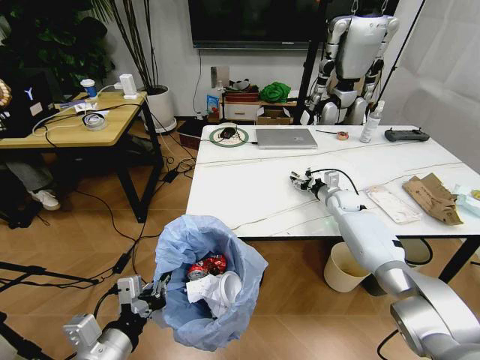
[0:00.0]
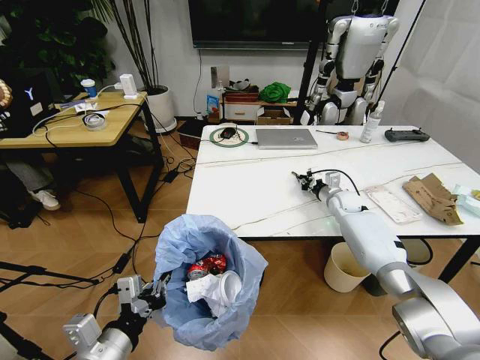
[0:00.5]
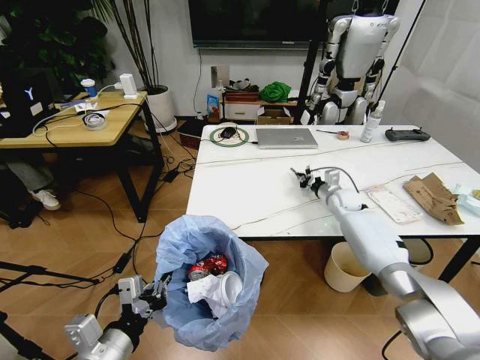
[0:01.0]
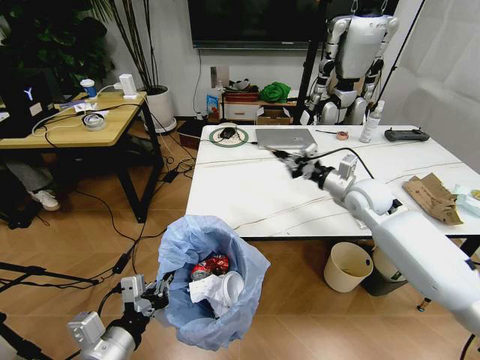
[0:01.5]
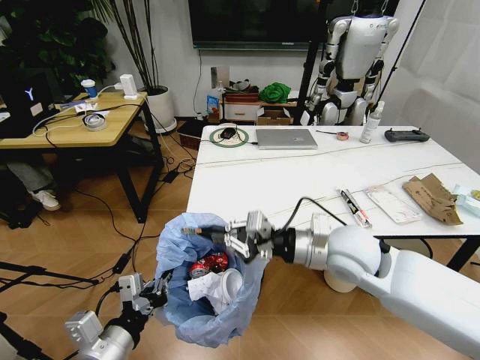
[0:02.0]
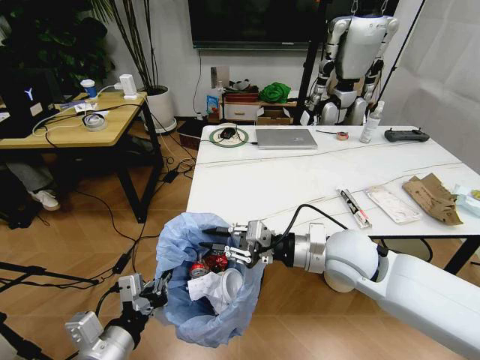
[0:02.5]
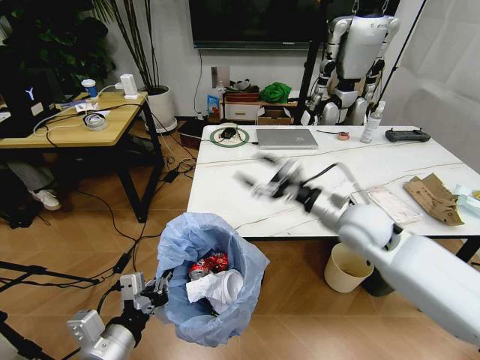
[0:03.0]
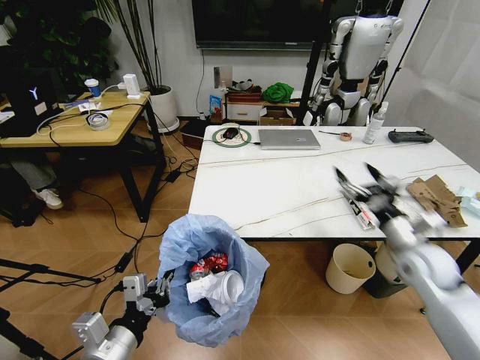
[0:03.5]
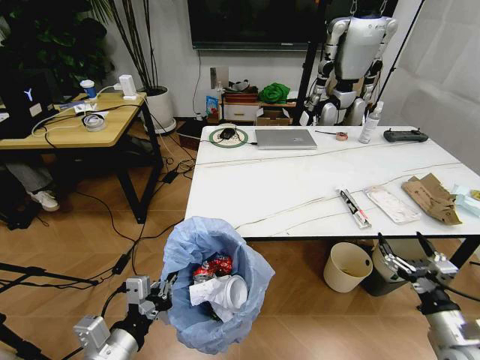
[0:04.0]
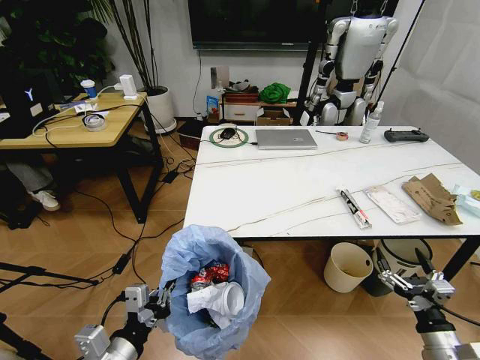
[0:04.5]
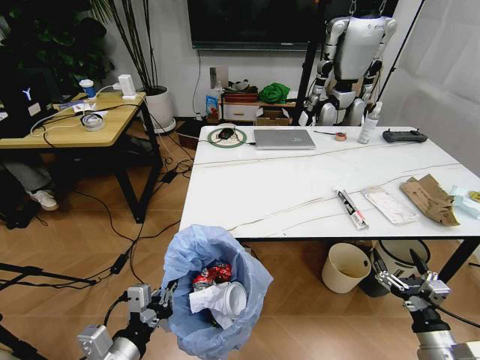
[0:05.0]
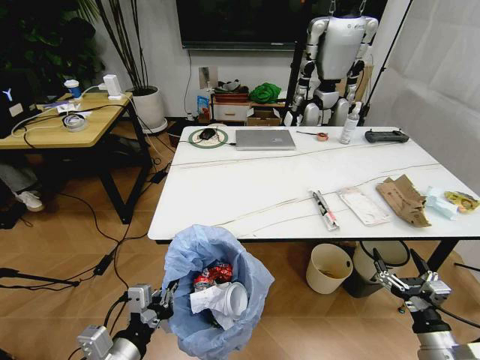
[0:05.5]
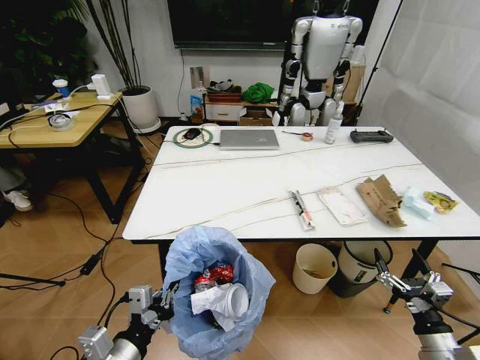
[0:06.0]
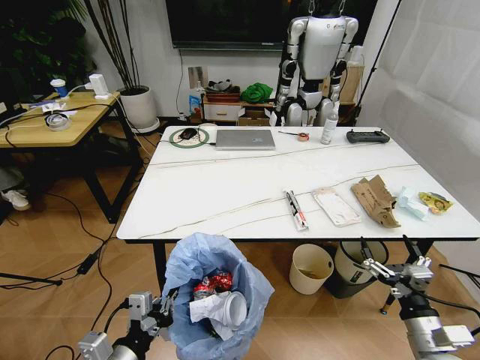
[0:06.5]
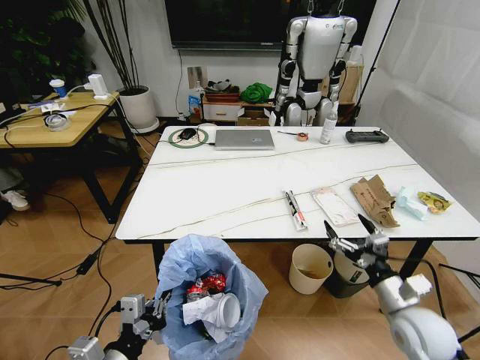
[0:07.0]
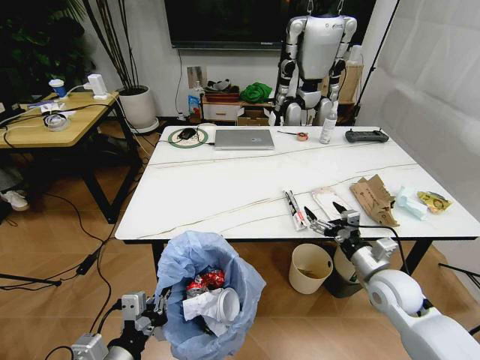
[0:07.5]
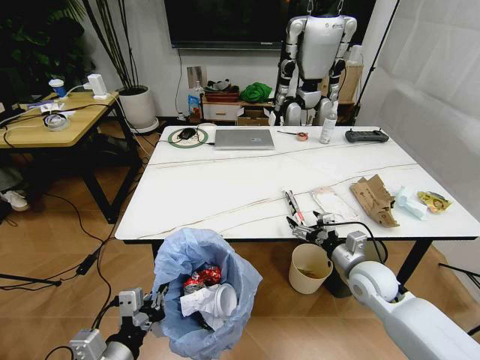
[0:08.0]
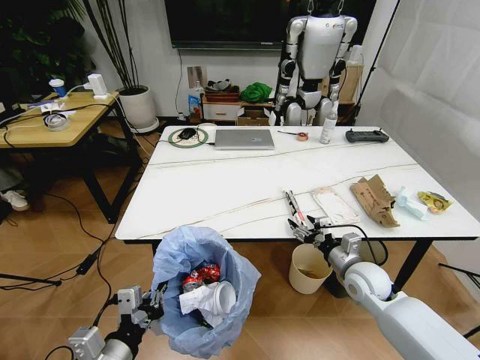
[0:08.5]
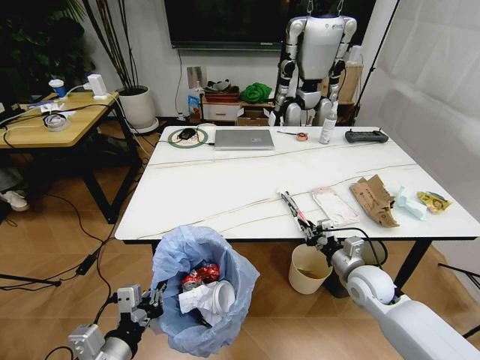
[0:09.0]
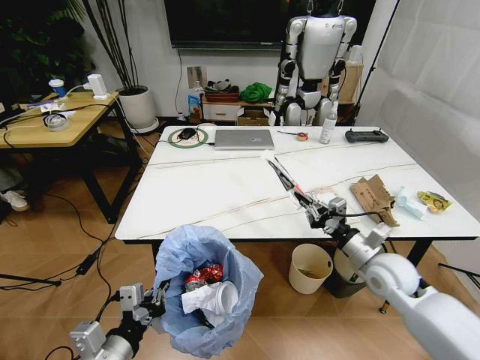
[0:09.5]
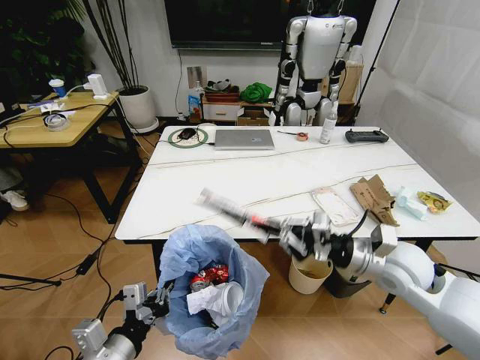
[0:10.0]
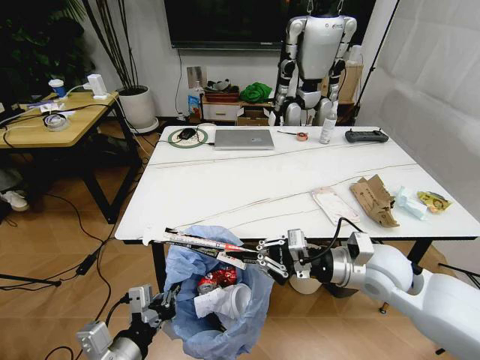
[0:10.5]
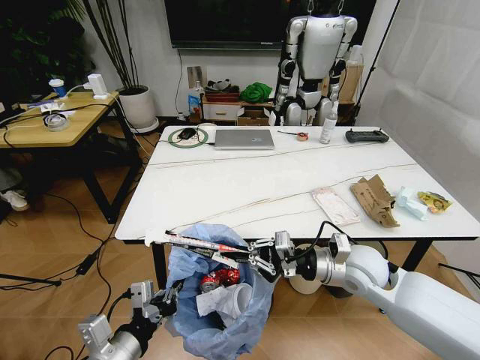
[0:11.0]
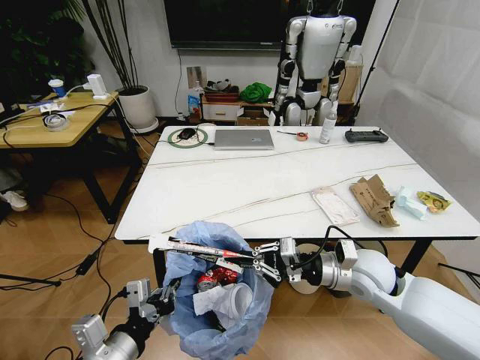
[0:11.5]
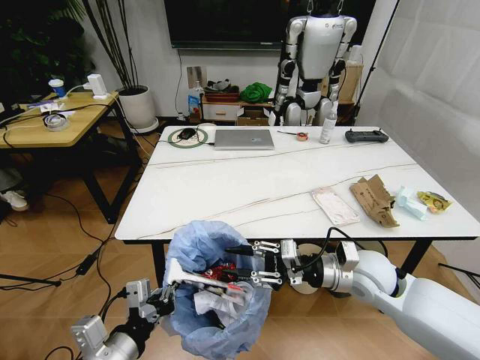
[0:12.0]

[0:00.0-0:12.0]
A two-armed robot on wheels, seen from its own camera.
Task of the whole recording: Pick up the trash bin and place the trash from the table into it.
0:00.0 to 0:02.0: The right gripper heads backward, upward and to the left, covering roughly 35 cm, and closes up.
0:02.0 to 0:04.0: The right gripper goes some 35 cm to the right, downward and backward, and opens up.
0:06.0 to 0:08.0: The right gripper is displaced forward and to the left by some 25 cm.
0:08.0 to 0:10.0: The right gripper shifts approximately 10 cm upward, and closes up.
0:10.0 to 0:12.0: The right gripper moves some 5 cm, and opens its fingers.

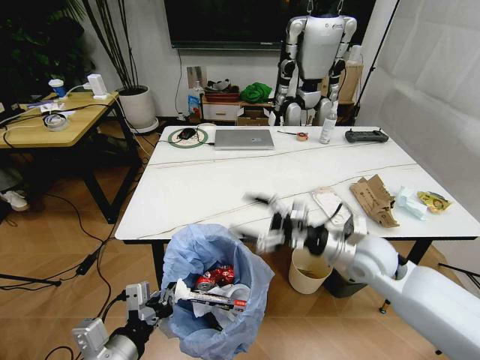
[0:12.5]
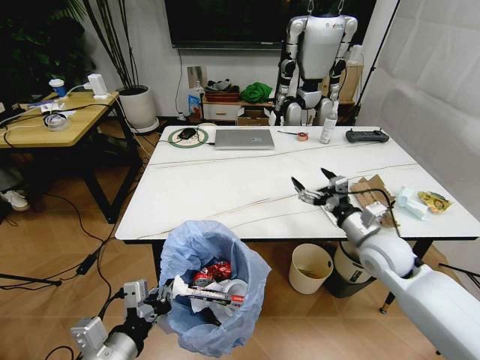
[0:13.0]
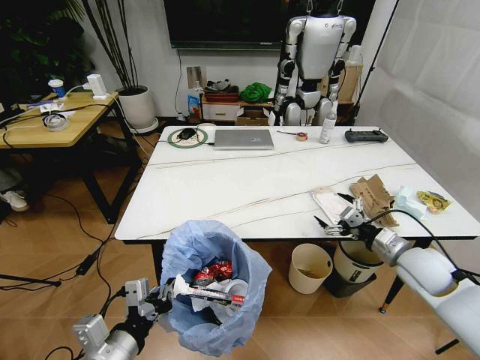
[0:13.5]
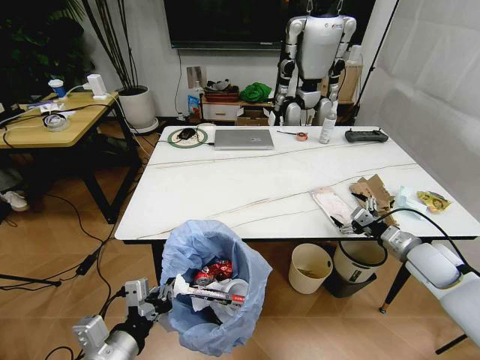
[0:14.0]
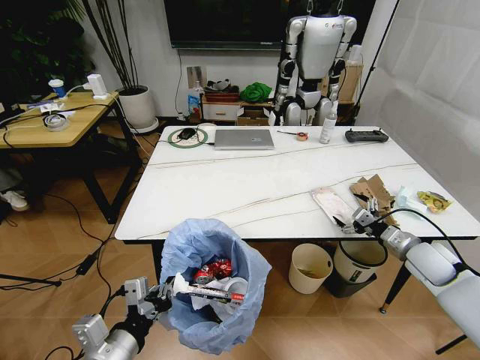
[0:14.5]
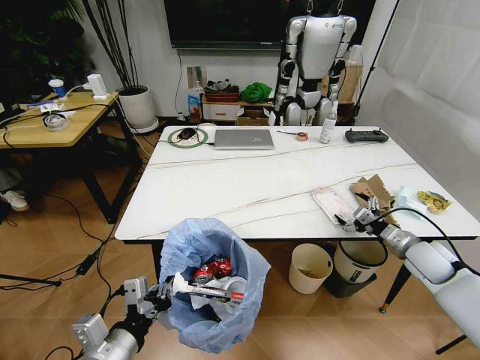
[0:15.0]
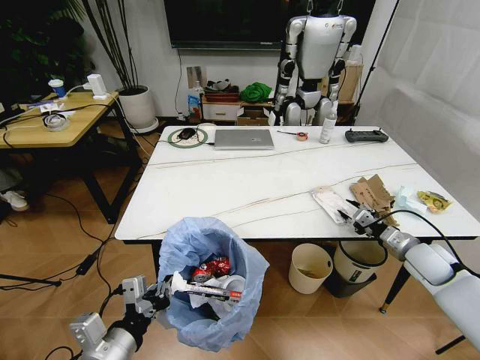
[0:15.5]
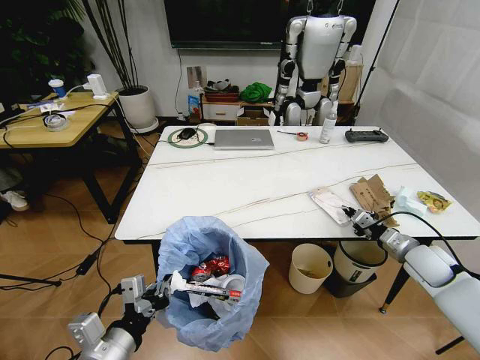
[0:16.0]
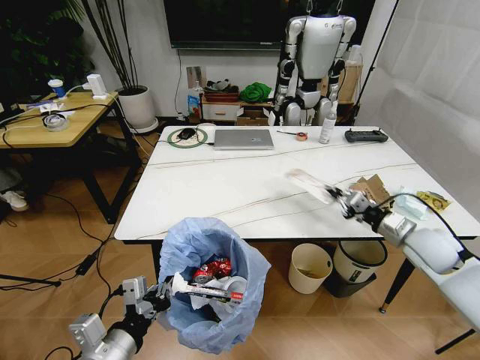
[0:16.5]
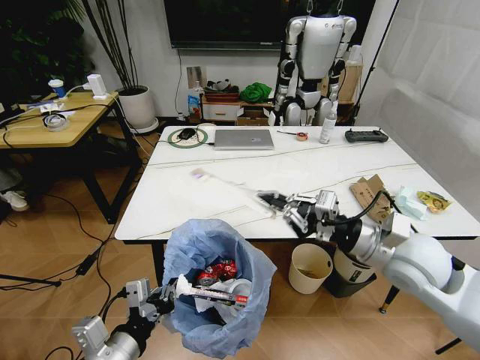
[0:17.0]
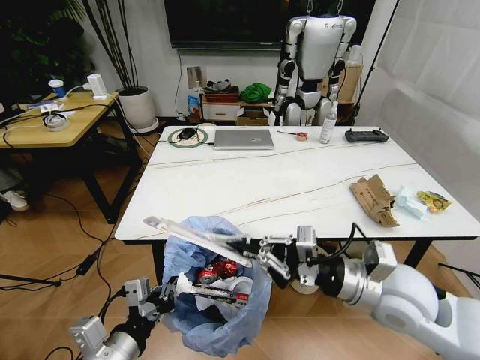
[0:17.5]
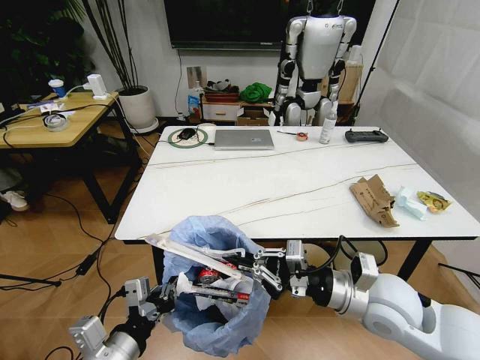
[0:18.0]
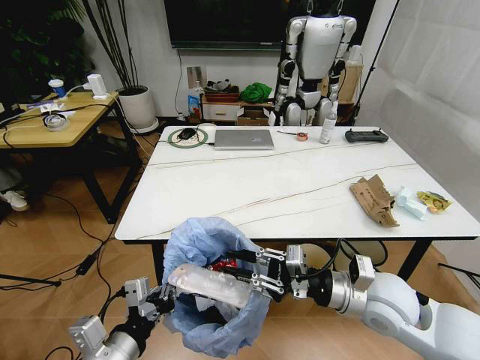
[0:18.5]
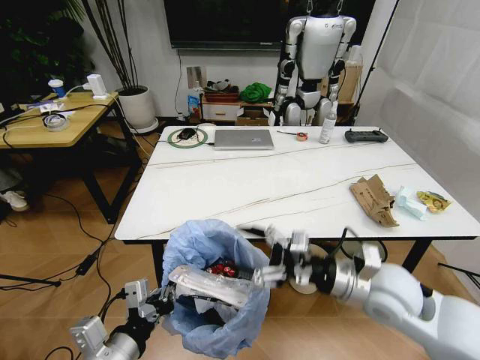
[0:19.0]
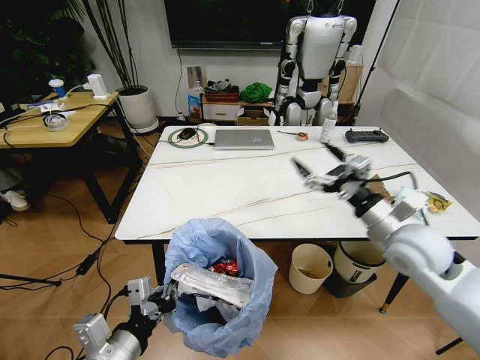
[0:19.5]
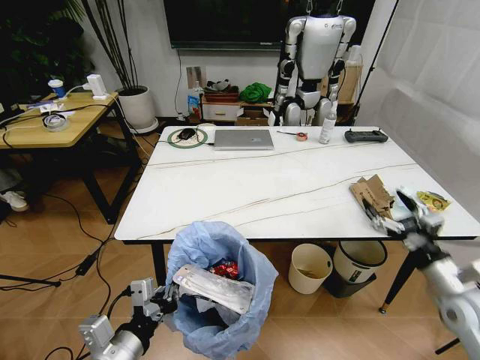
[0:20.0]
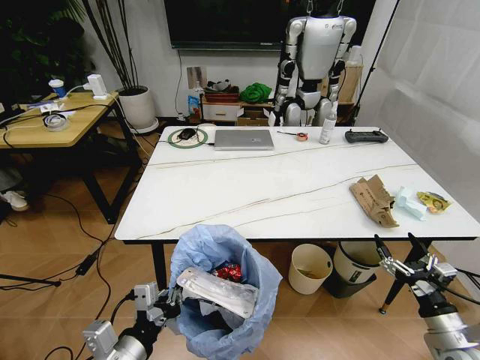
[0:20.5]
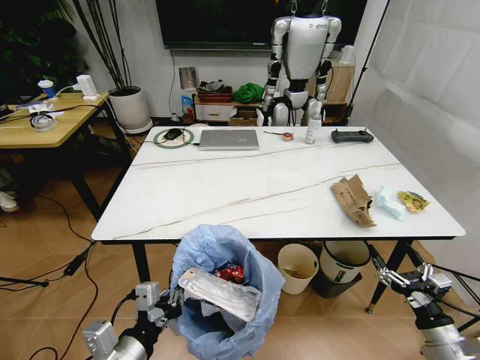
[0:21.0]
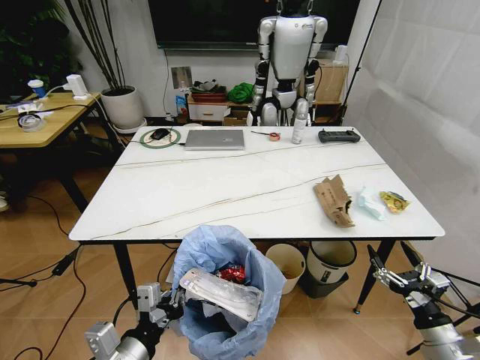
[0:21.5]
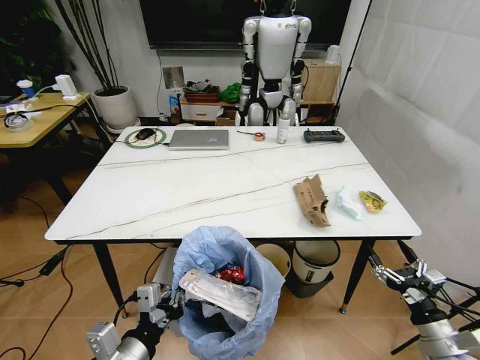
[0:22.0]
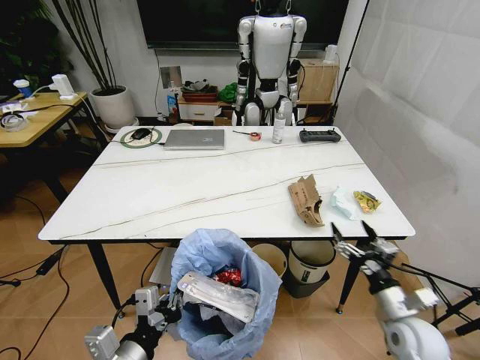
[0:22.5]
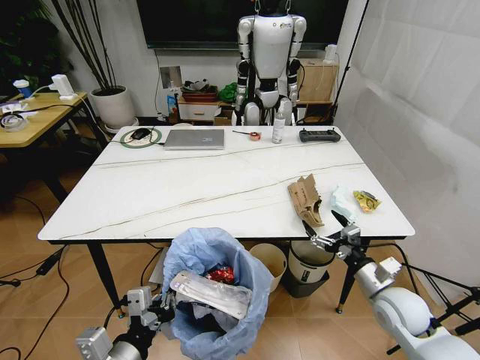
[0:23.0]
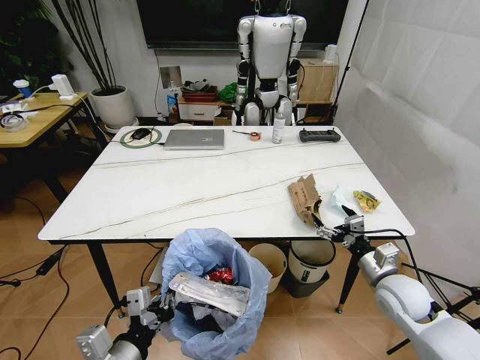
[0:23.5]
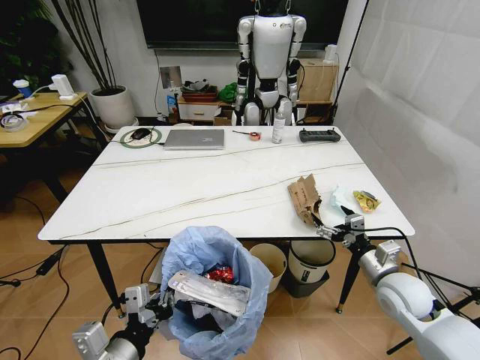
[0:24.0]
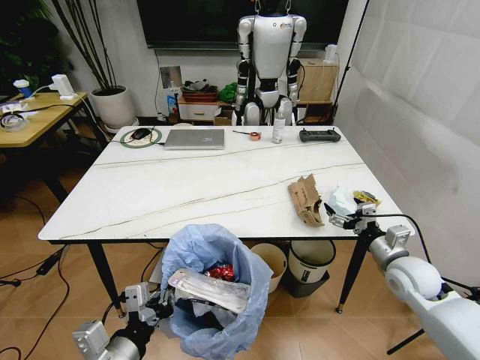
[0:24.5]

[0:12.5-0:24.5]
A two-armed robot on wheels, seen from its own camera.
Task of the whole recording: Pick up the trash bin and place the trash from the table into it.
0:12.5 to 0:14.5: The right gripper heads to the right and downward, covering approximately 20 cm.
0:14.5 to 0:16.5: The right gripper moves approximately 5 cm, and closes its fingers.
0:16.5 to 0:18.5: The right gripper travels to the left and backward by approximately 20 cm.
0:18.5 to 0:20.5: The right gripper shifts about 25 cm to the right, downward and backward, and opens.
0:20.5 to 0:22.5: The right gripper moves to the left and forward, approximately 10 cm.
0:22.5 to 0:24.5: The right gripper goes about 10 cm forward and upward.

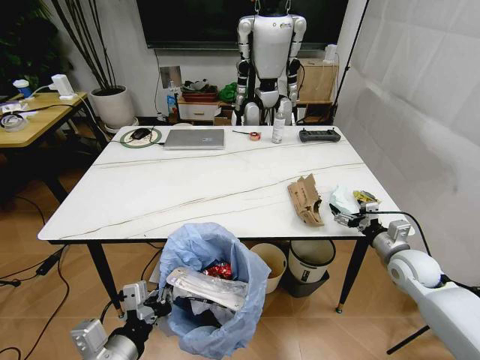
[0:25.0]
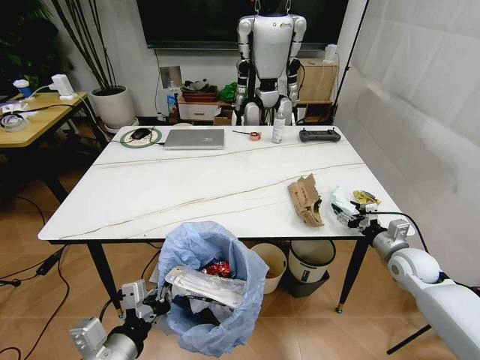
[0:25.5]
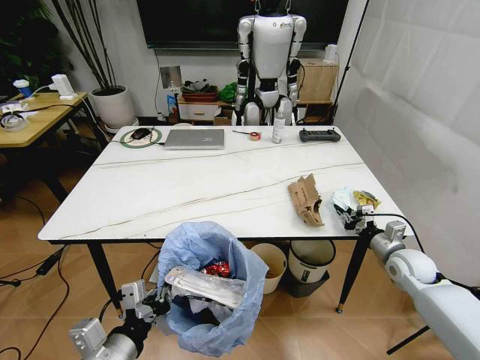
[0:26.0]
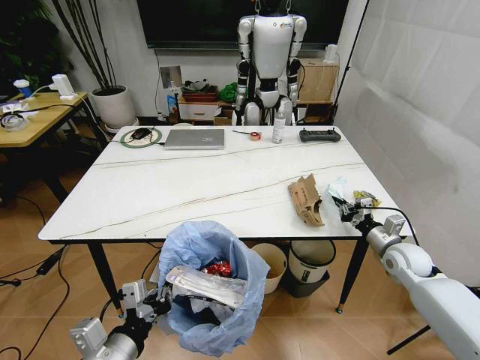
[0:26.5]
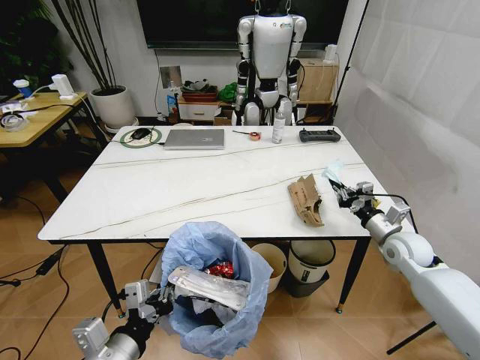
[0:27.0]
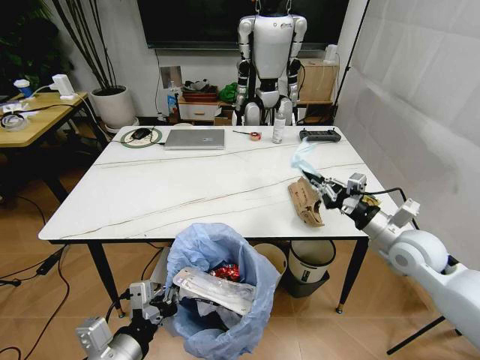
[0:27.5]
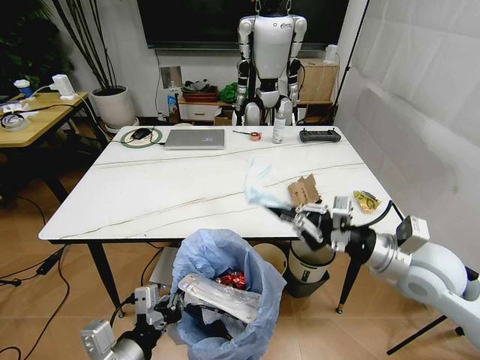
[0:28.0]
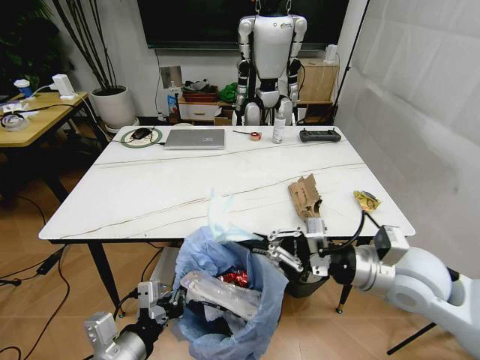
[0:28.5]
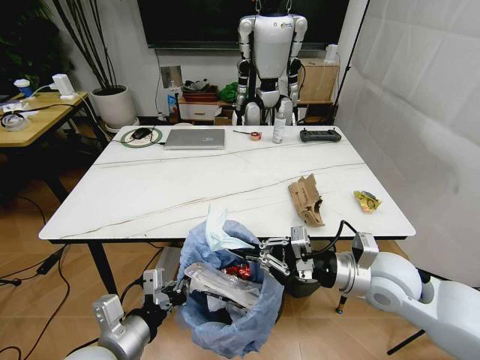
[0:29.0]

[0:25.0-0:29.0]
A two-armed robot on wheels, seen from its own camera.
Task of the whole recording: Pick up the trash bin and place the trash from the table into it.
0:25.0 to 0:27.0: The right gripper closes its fingers.
0:27.0 to 0:29.0: The right gripper goes approximately 25 cm to the left, upward and backward.
